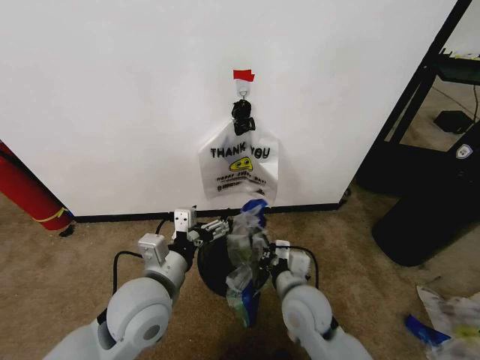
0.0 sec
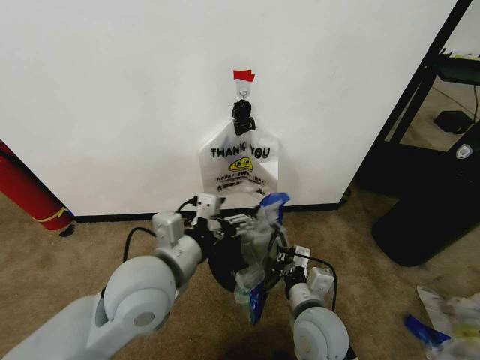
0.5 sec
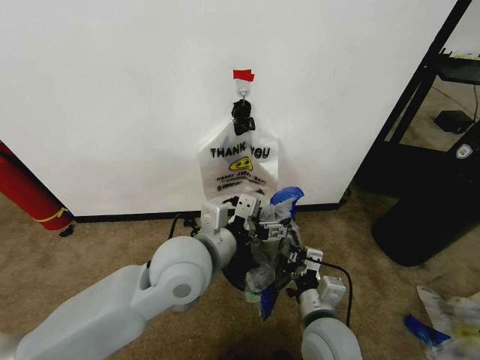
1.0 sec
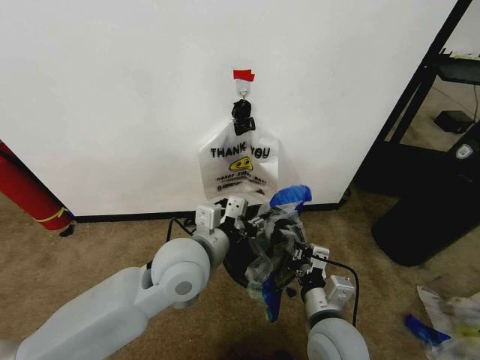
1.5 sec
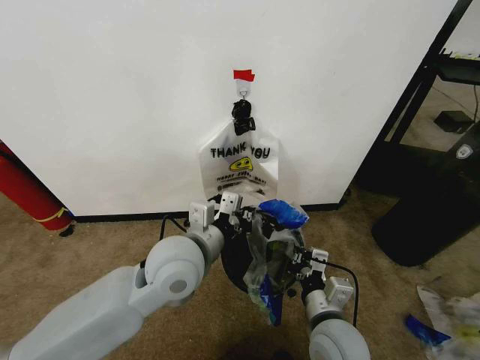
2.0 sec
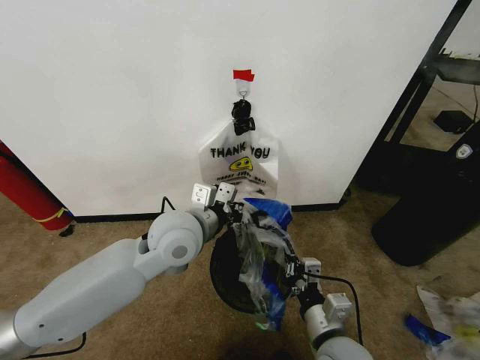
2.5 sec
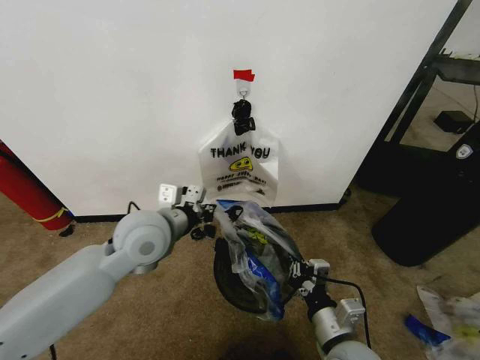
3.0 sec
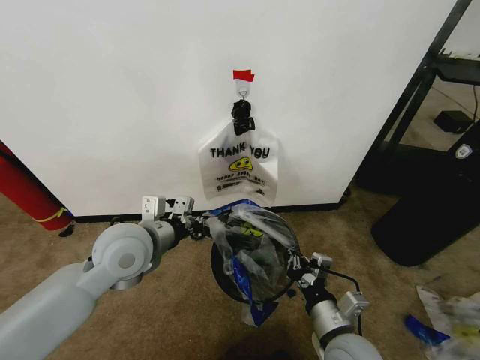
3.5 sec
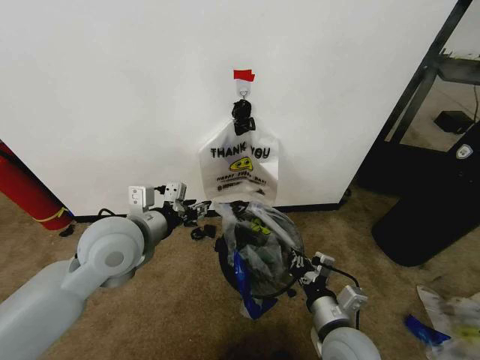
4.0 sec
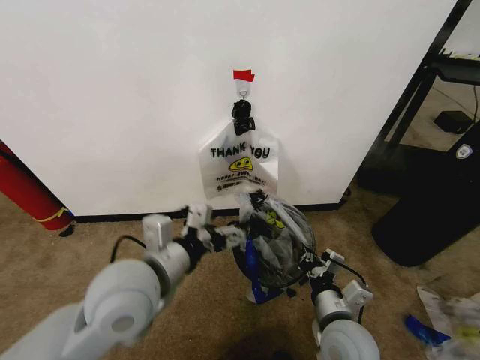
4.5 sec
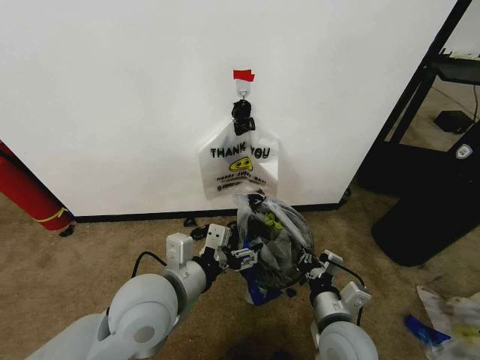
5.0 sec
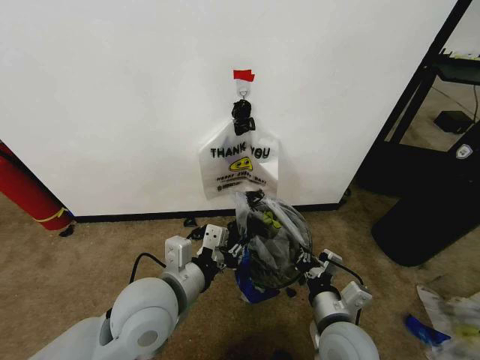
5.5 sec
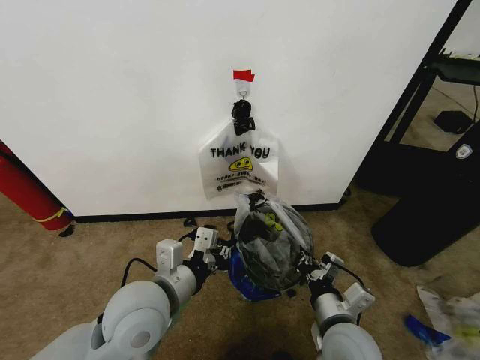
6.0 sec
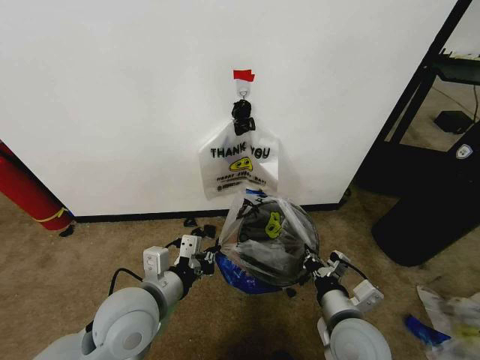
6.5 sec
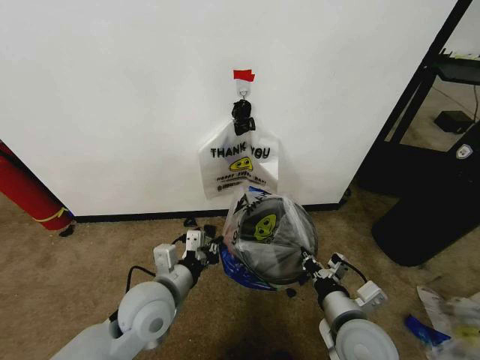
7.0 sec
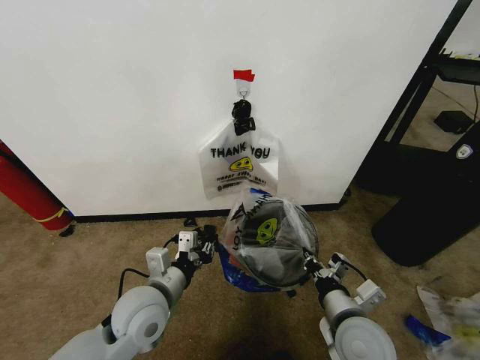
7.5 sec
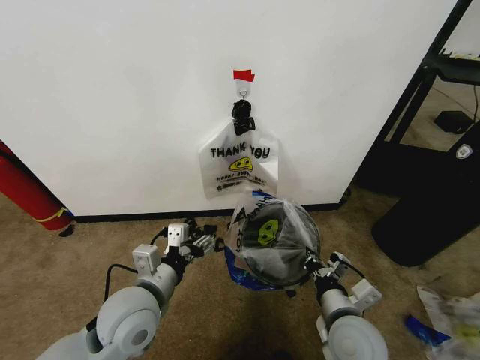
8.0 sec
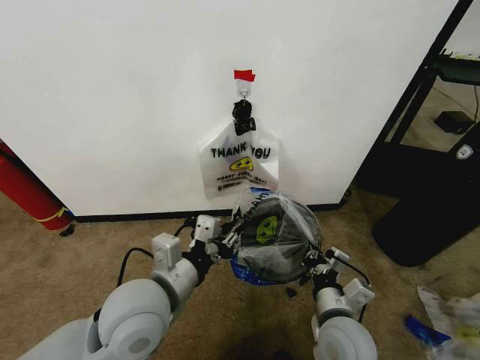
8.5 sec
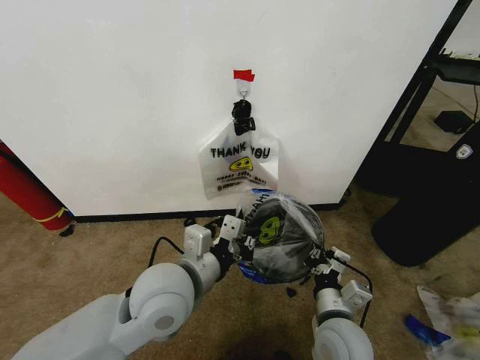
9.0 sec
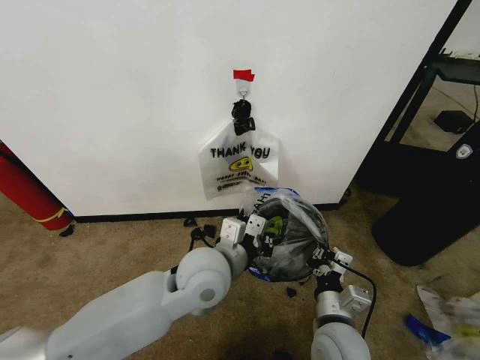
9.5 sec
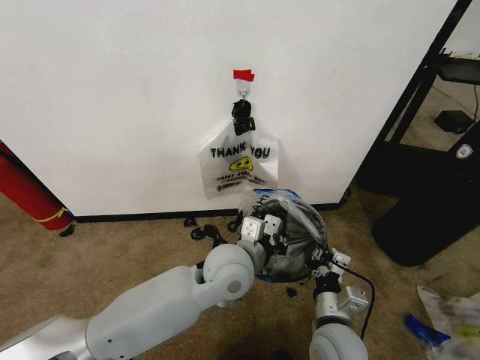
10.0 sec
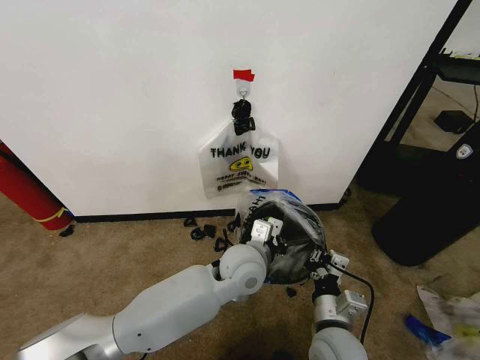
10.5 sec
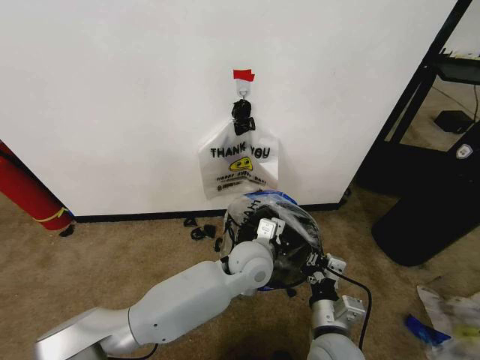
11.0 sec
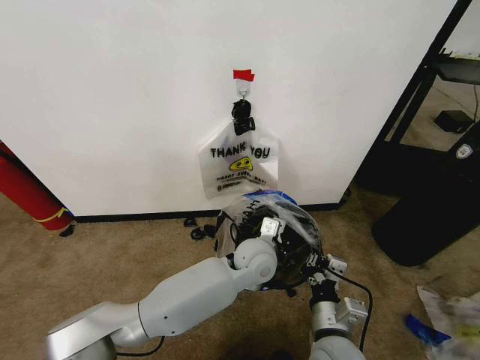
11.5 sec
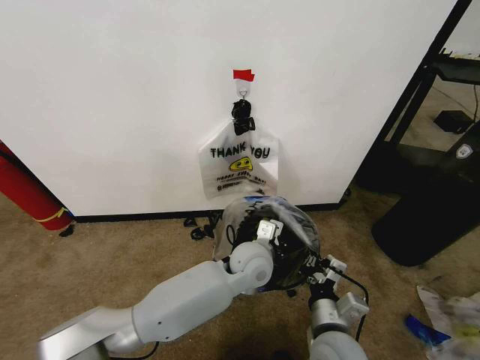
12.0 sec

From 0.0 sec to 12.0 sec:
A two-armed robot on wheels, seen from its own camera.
Task of the whole recording: Pick up the garbage bag from the wall and place it over the trash bin.
From 0.0 sec to 2.0 sec: The left gripper is displaced forward and to the right by about 10 cm, and closes its fingers. Meanwhile the right gripper shifts some 5 cm backward.
From 2.0 sec to 4.0 sec: The left gripper is displaced to the left by about 10 cm, and opens its fingers.
From 4.0 sec to 6.0 sec: The left gripper heads backward, downward and to the right, covering about 10 cm, and closes its fingers.
From 6.0 sec to 8.0 sec: The left gripper opens.
From 8.0 sec to 10.0 sec: The left gripper goes some 20 cm to the right and forward, and closes.
From 10.0 sec to 12.0 sec: The left gripper goes approximately 10 cm downward and to the right.

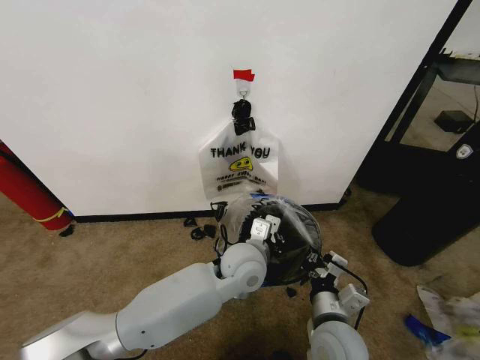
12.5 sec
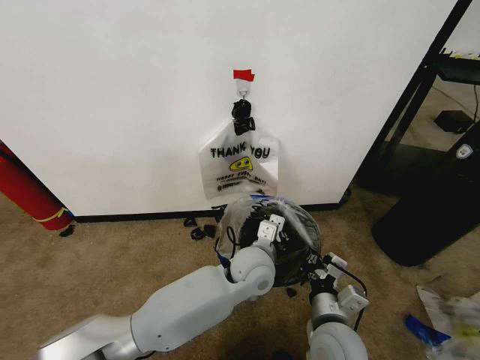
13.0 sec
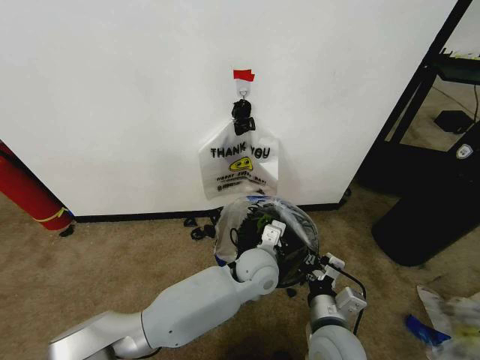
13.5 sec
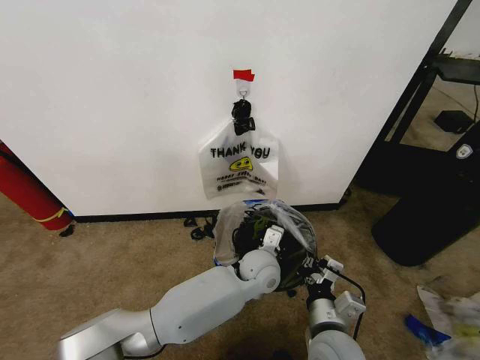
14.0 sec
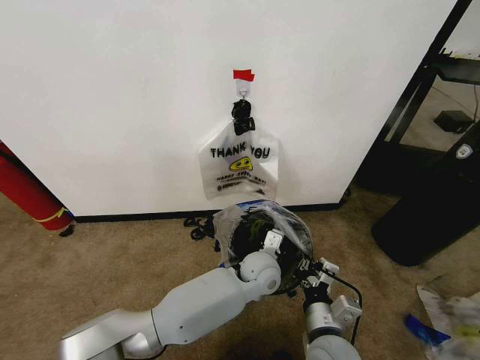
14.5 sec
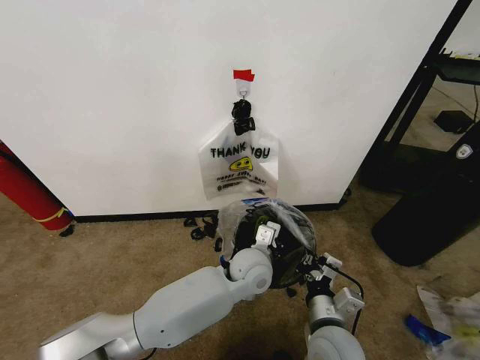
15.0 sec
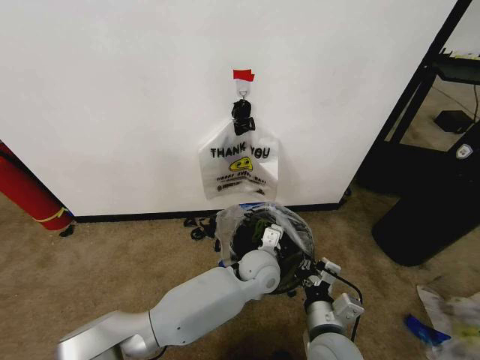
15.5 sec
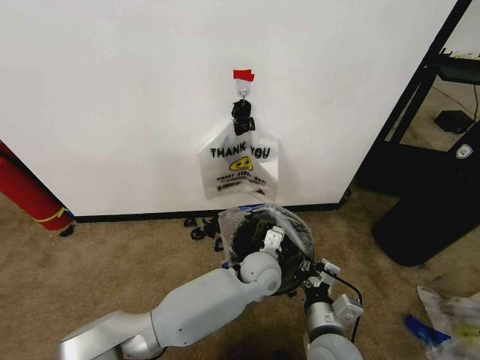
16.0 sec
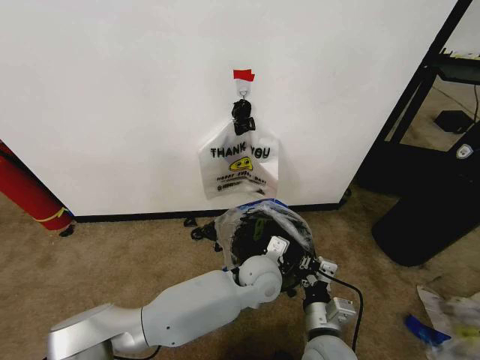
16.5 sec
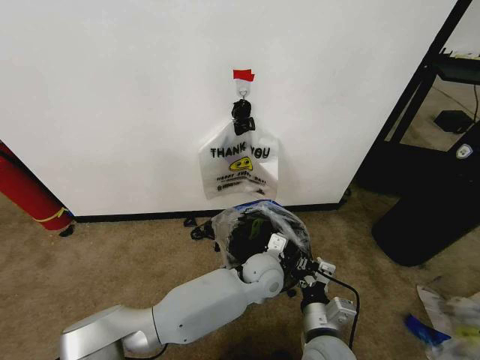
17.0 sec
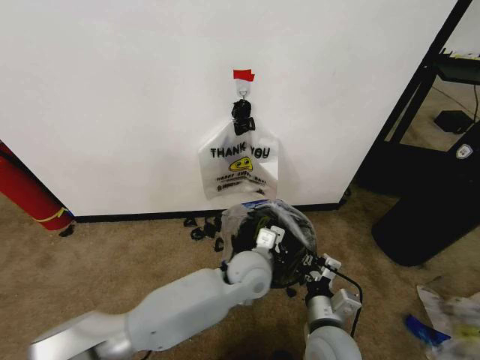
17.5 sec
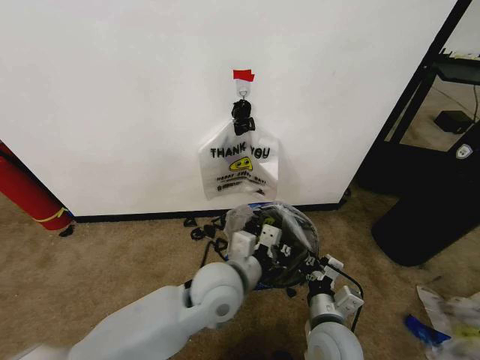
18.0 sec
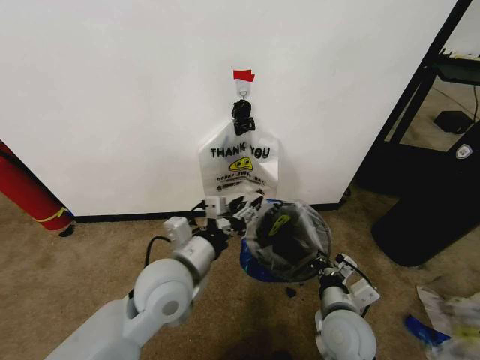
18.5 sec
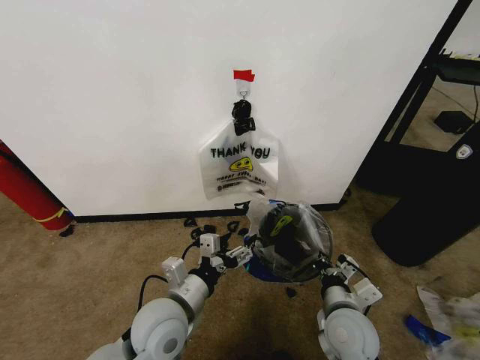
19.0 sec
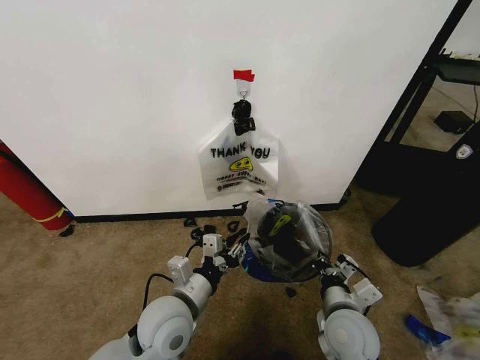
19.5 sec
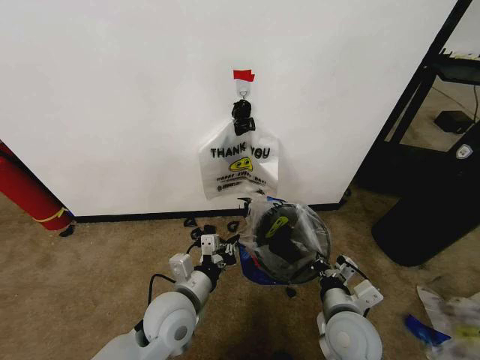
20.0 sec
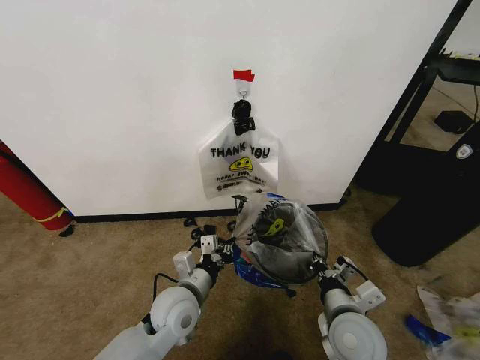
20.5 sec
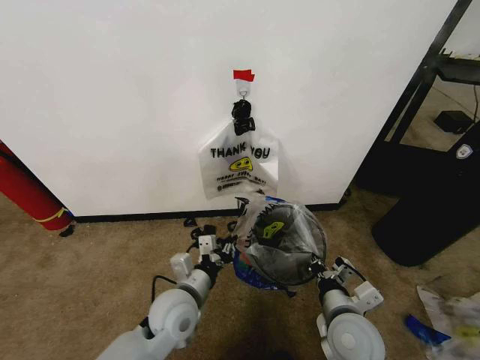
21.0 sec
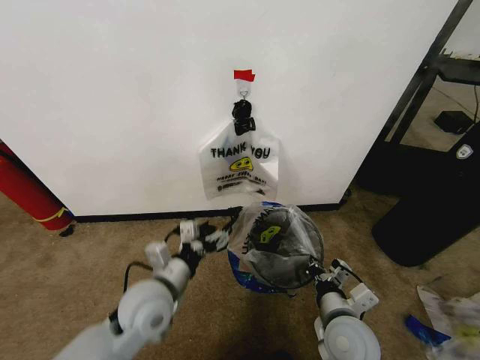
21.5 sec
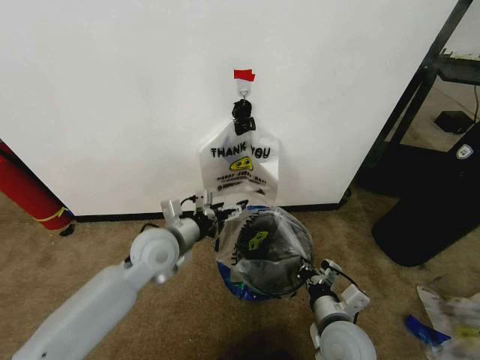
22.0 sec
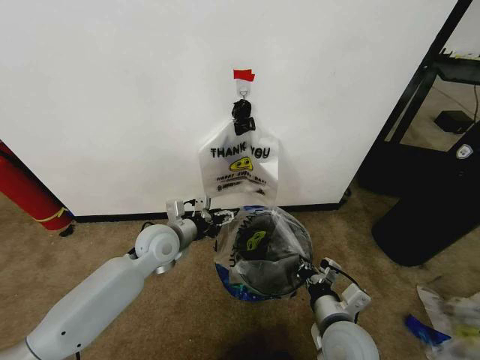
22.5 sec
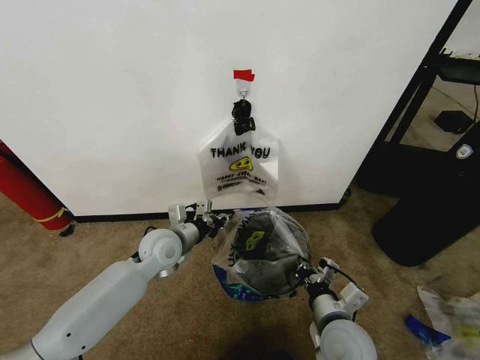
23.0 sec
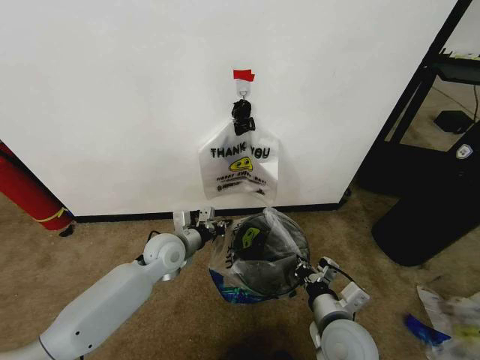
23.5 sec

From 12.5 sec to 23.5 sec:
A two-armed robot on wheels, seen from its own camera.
Task of the whole recording: Pick up the garbage bag from the wall and place it over the trash bin.
From 12.5 sec to 14.5 sec: The left gripper moves downward, approximately 10 cm.
From 14.5 sec to 16.0 sec: The grippers make only small movements.
From 16.0 sec to 18.0 sec: The left gripper shifts approximately 15 cm upward, to the left and backward.
From 18.0 sec to 20.0 sec: The left gripper is displaced to the left and downward by about 10 cm, and opens, then closes once more.
From 20.0 sec to 21.5 sec: The left gripper opens its fingers.
From 21.5 sec to 23.5 sec: The left gripper shifts about 15 cm forward, and closes.

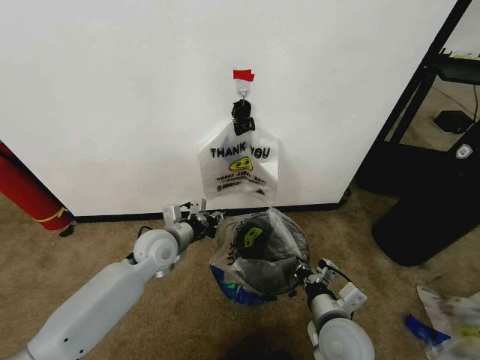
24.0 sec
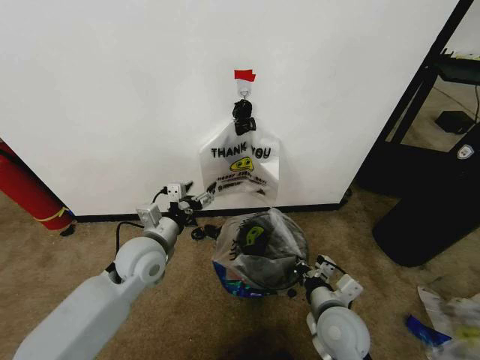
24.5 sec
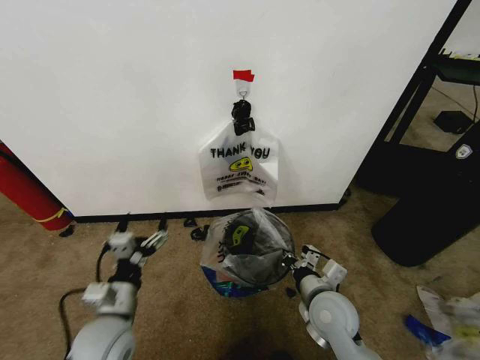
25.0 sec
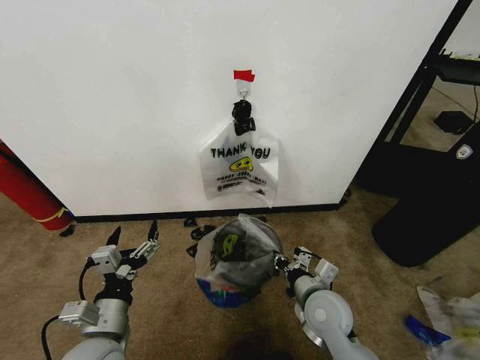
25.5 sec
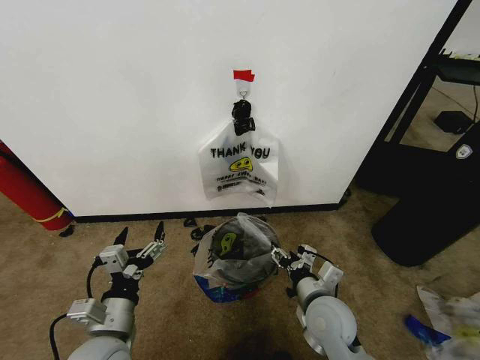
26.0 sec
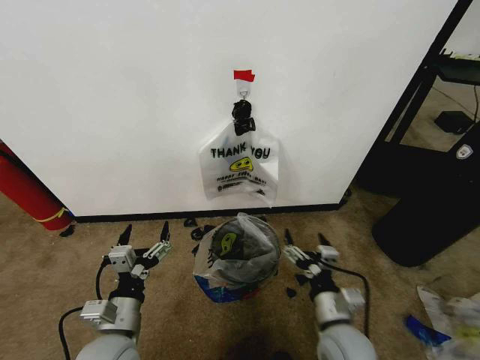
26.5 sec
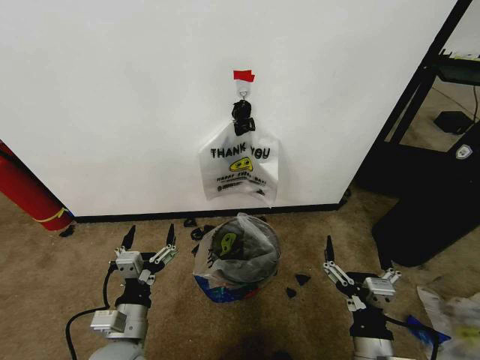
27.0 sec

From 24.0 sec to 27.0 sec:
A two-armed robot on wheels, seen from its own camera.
Task of the whole recording: Pick up the garbage bag from the wall and place it over the trash bin.
From 24.0 sec to 25.5 sec: The right gripper goes some 5 cm forward; the left gripper goes about 20 cm backward, and opens up.
From 25.5 sec to 27.0 sec: The right gripper shifts about 15 cm backward, and opens.
